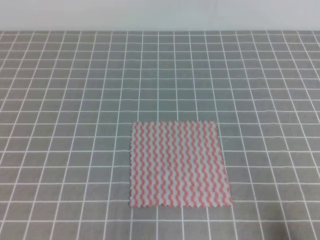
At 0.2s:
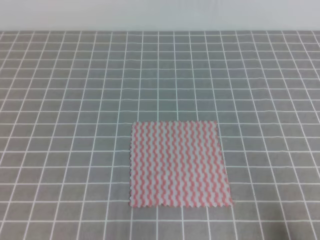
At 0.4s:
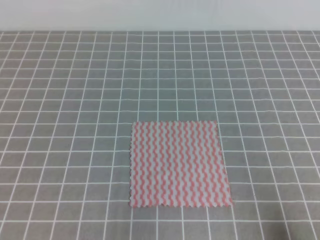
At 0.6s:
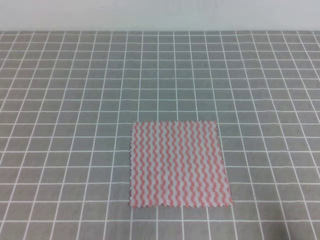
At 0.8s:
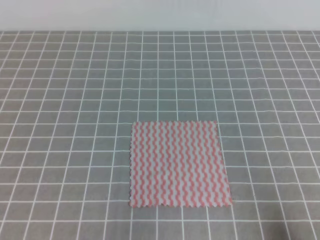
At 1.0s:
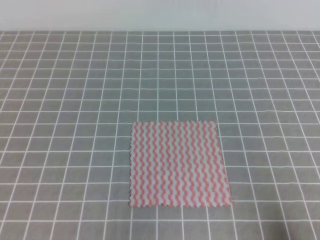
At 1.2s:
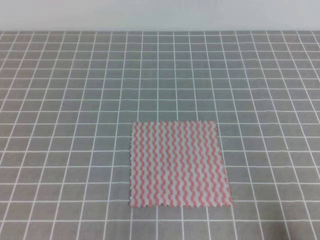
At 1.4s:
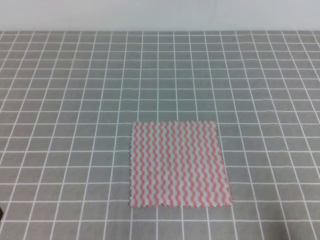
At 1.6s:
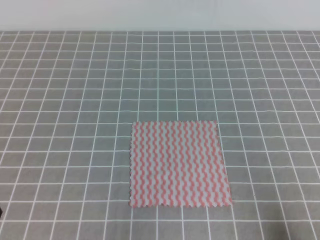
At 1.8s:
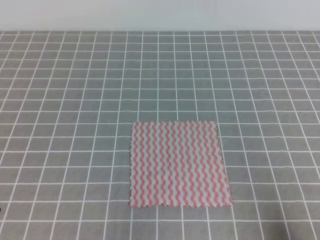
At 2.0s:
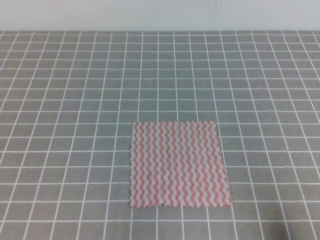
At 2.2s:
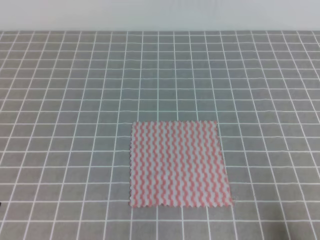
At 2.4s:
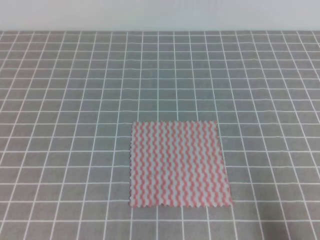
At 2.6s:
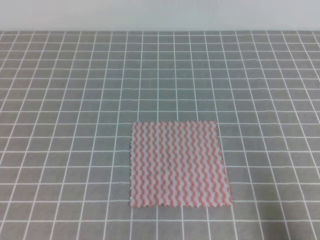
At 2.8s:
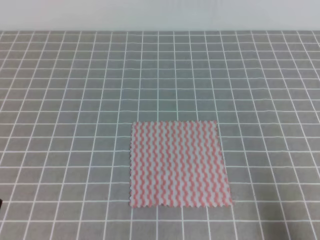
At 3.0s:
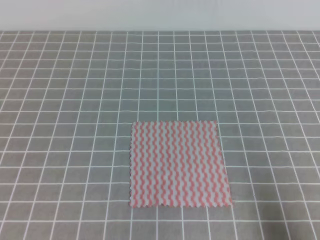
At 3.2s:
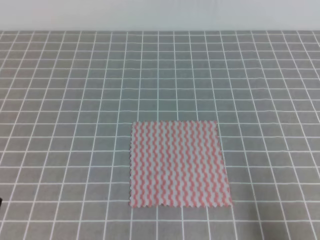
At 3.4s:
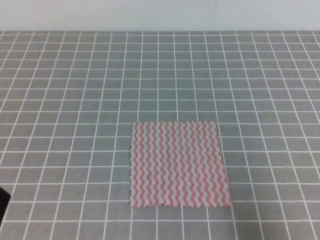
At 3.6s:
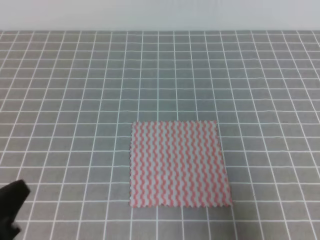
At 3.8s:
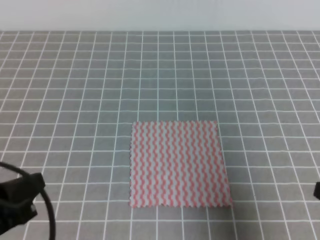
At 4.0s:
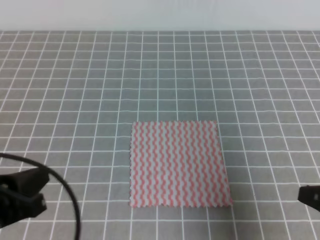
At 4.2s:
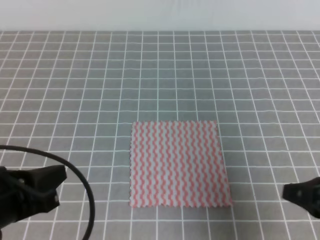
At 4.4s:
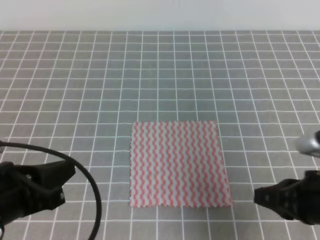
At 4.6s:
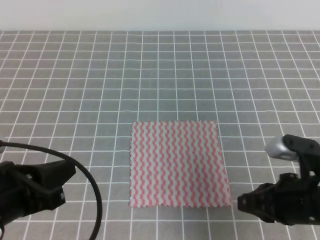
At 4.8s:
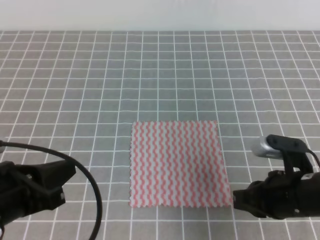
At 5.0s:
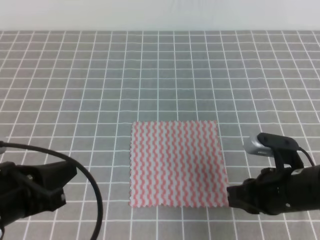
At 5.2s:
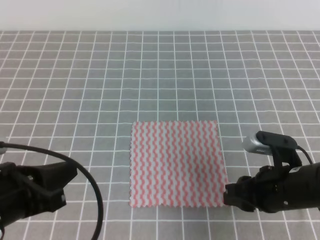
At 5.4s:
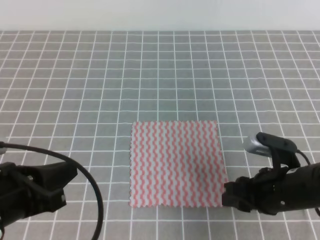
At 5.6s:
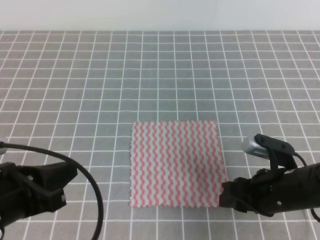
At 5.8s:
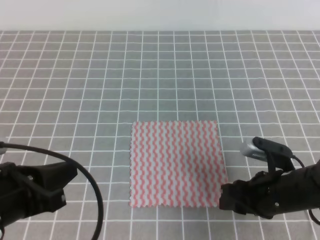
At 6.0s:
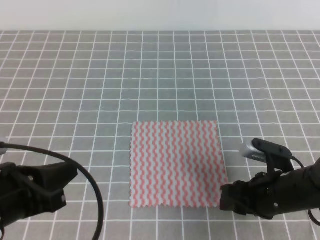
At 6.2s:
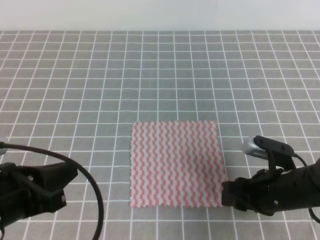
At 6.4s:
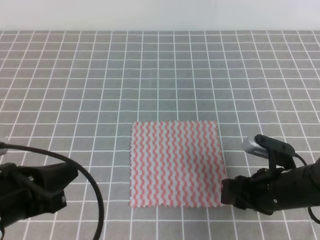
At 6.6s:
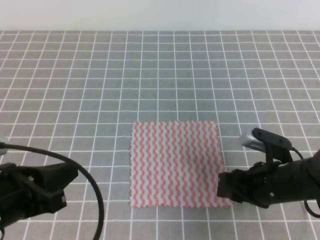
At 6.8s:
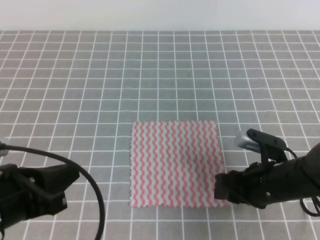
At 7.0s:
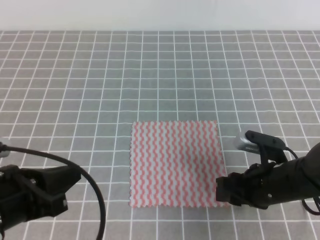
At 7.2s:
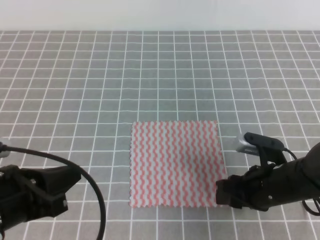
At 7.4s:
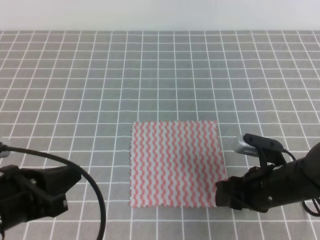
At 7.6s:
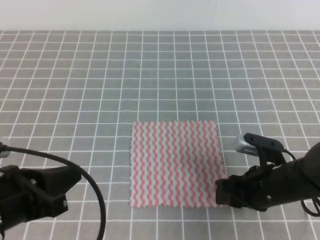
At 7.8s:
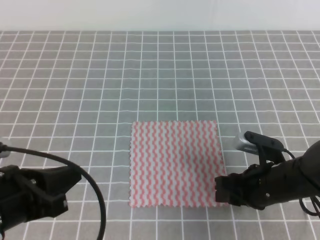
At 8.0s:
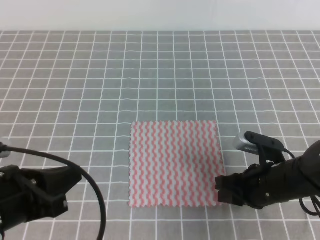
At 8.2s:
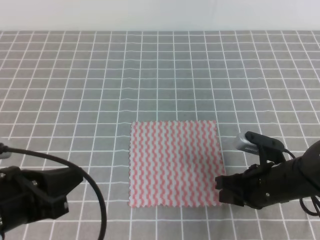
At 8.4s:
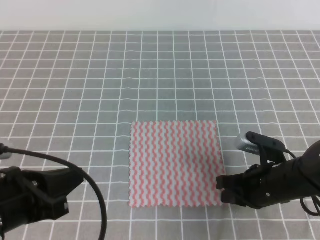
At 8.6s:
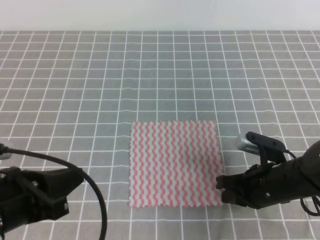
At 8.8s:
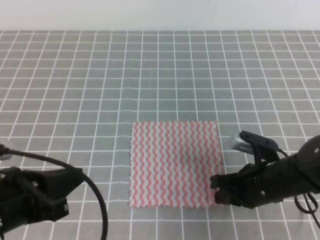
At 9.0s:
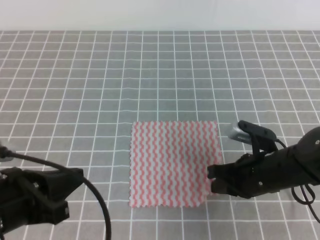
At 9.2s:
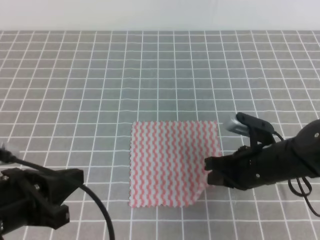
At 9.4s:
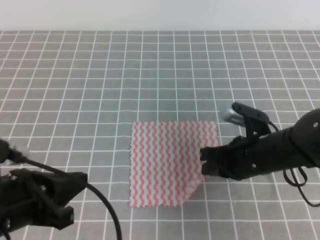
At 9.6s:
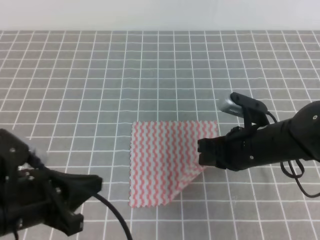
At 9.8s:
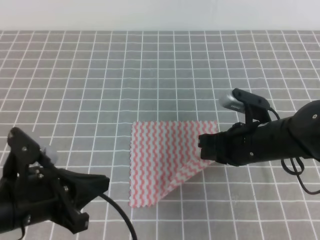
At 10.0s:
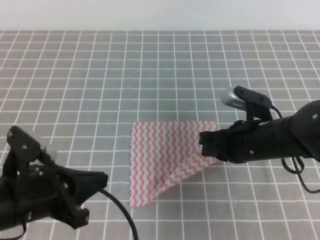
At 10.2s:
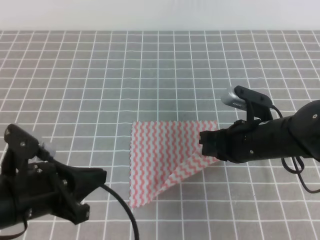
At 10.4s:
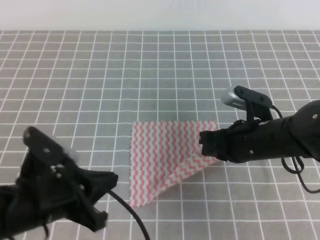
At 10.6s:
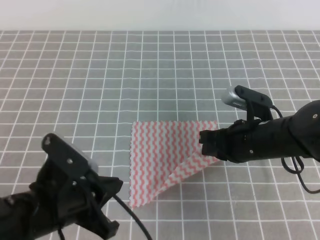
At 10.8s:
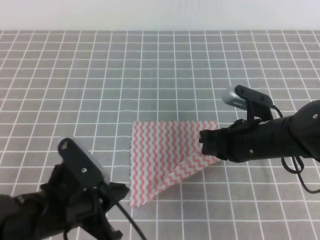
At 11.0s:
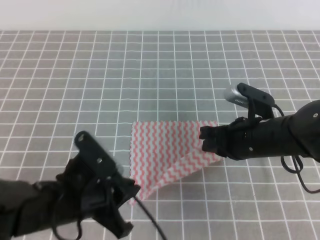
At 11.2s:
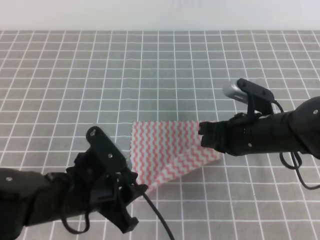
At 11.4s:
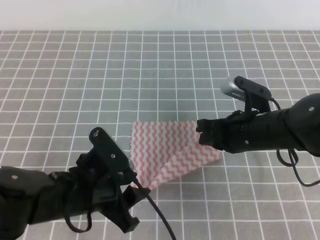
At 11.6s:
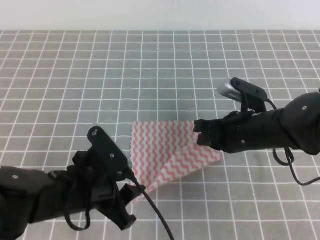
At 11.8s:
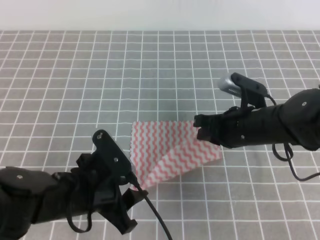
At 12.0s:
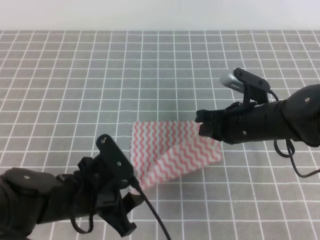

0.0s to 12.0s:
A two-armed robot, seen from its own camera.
3.0s to 4.4s: The right gripper goes roughly 15 cm forward and to the left, while the left gripper moves forward and upward, about 10 cm.
4.4s to 6.0s: The right gripper shifts about 10 cm downward, forward and to the left, and opens up.
6.0s to 7.6s: There are only small adjustments of the grippers.
7.6s to 9.0s: The right gripper closes its fingers.
9.0s to 10.4s: The left gripper changes place by approximately 5 cm. Meanwhile the right gripper moves some 5 cm.
10.4s to 12.0s: The left gripper ends up some 5 cm from where it was, and opens its fingers.

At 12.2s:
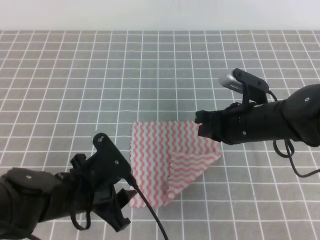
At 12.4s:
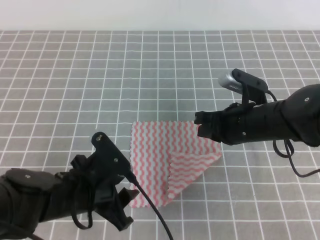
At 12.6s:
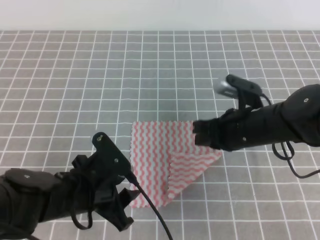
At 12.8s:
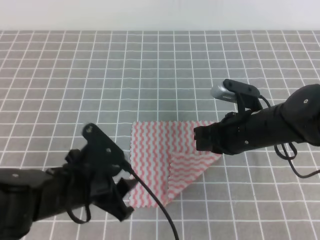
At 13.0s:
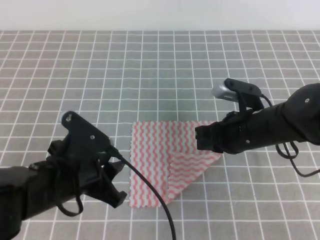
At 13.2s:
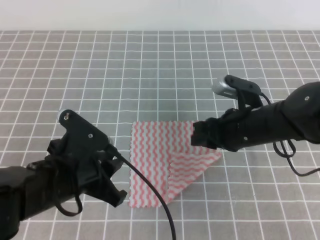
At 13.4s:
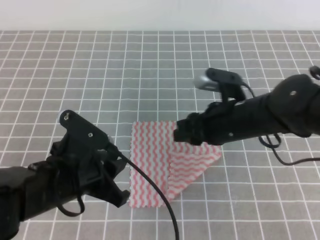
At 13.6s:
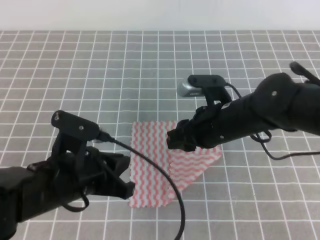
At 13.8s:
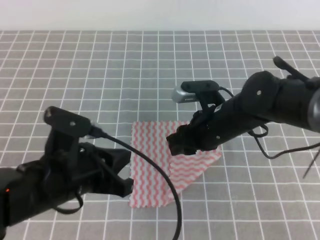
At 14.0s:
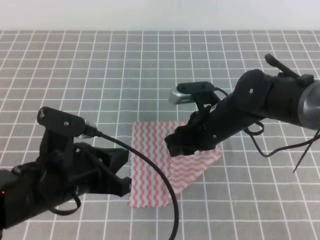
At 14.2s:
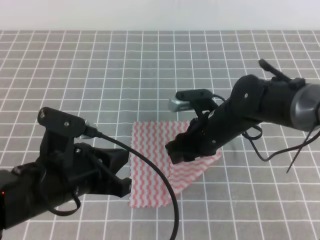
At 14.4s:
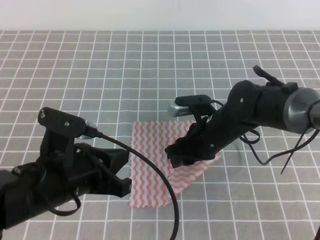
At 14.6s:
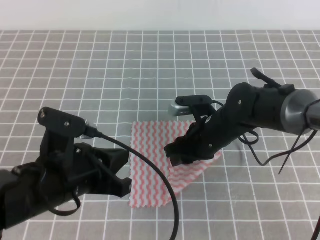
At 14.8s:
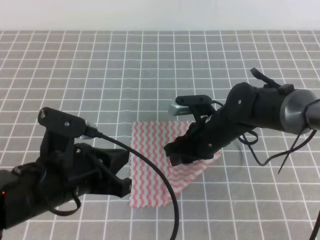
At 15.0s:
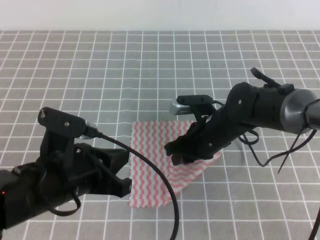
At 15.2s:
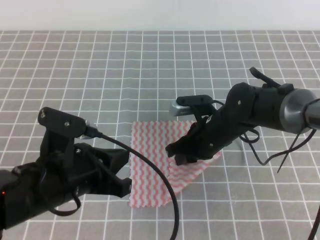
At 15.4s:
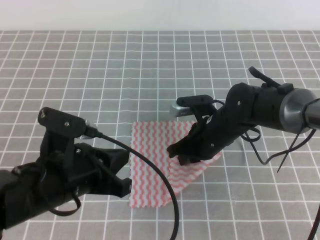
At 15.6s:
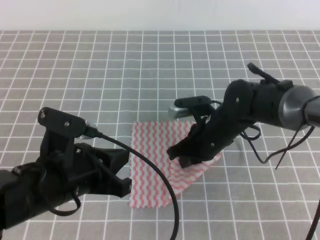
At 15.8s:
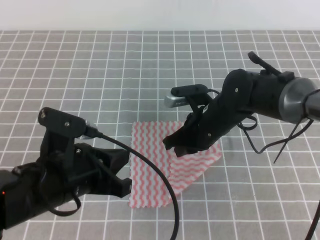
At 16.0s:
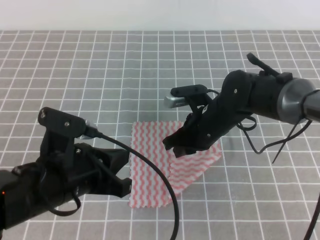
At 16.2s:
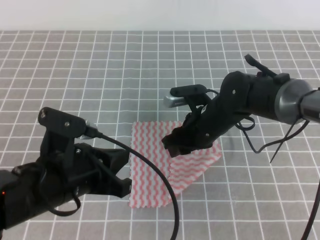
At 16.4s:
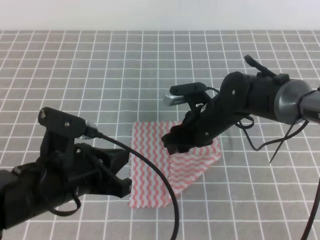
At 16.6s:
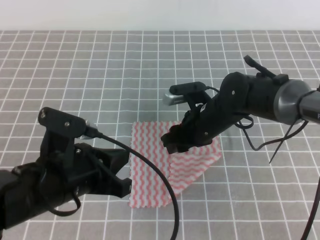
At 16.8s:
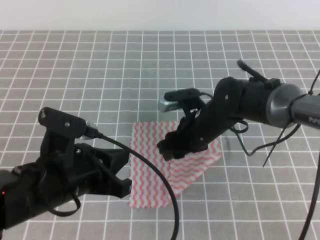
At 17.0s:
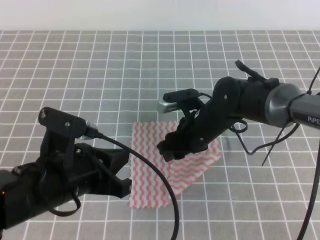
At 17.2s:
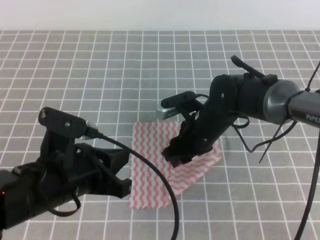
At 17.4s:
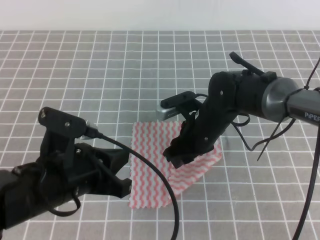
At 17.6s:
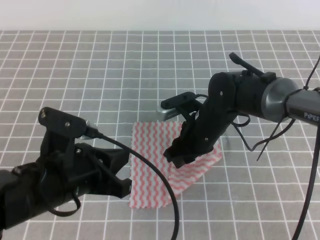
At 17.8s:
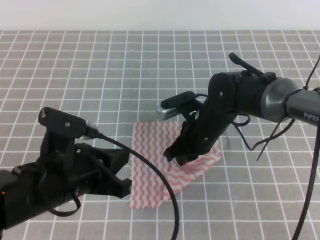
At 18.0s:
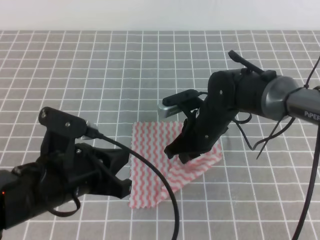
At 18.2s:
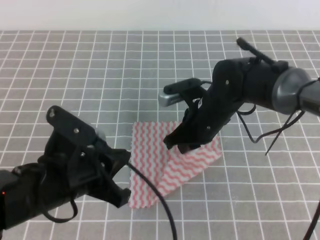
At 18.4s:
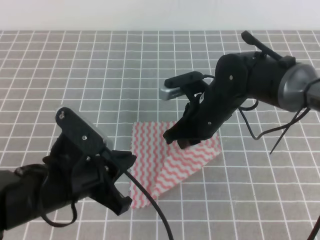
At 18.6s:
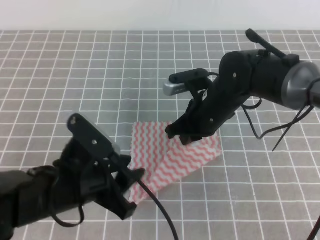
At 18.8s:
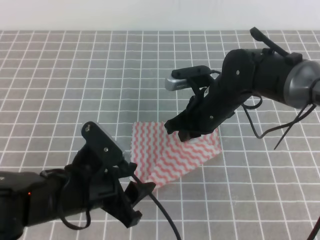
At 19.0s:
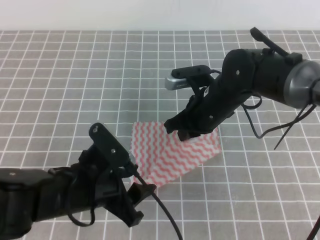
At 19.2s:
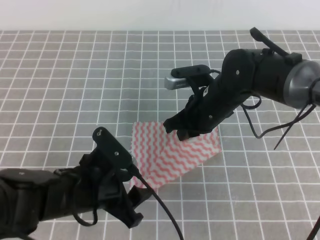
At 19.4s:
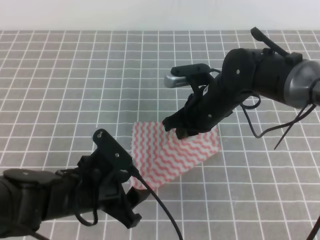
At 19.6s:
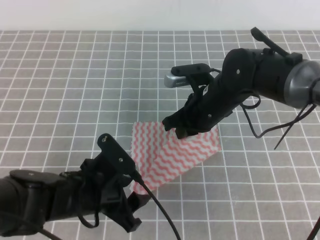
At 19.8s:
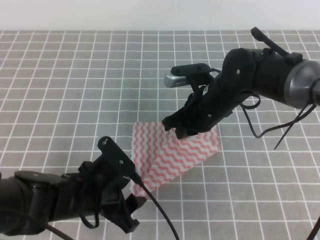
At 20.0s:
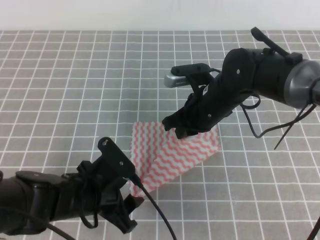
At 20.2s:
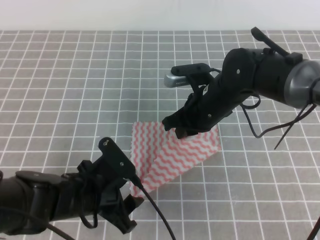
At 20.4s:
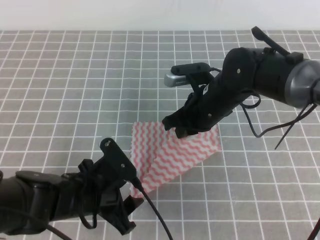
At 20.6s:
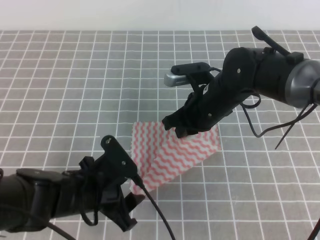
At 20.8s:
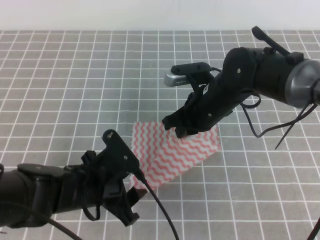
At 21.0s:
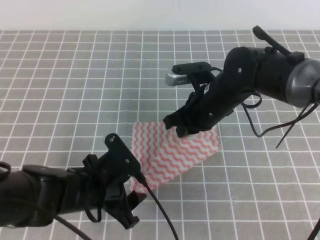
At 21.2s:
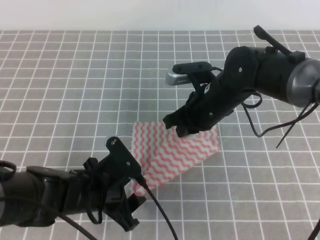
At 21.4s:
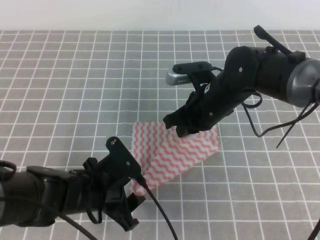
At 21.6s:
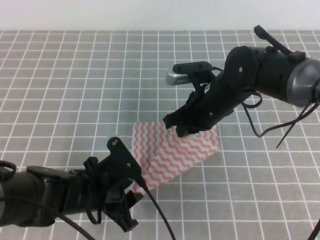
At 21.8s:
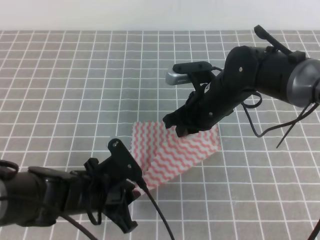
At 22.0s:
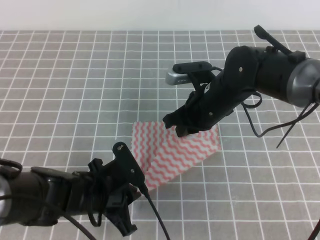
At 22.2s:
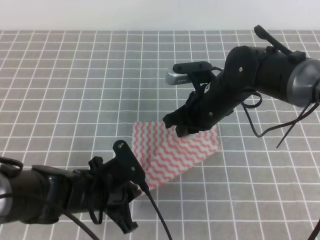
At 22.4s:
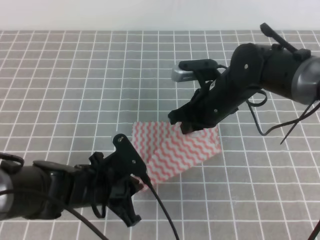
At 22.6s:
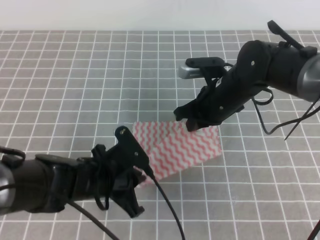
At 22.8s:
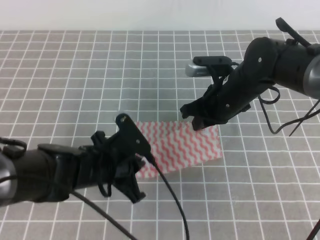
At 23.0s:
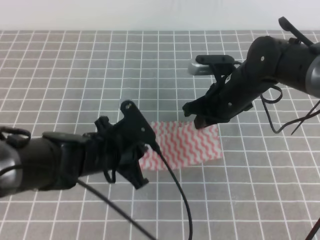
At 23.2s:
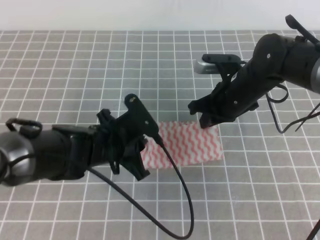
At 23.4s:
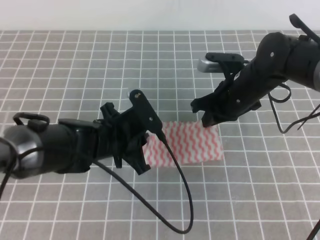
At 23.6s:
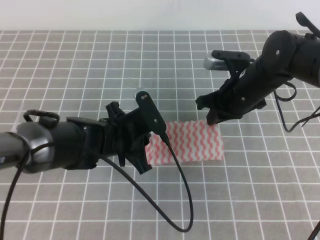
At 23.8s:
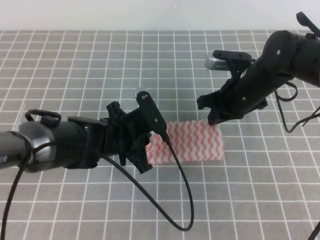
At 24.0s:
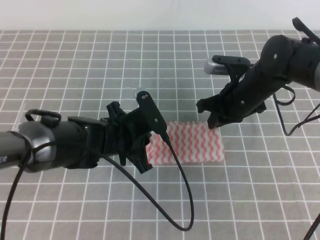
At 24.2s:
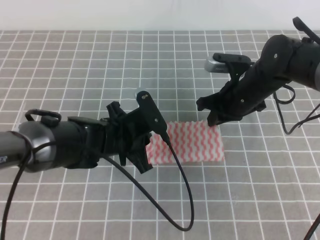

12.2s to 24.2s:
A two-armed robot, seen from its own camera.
12.2s to 13.8s: The left gripper is displaced upward by some 5 cm, and closes. The right gripper opens up.
13.8s to 15.2s: The right gripper heads downward, covering some 5 cm, and closes up.
15.2s to 16.6s: The right gripper opens its fingers.
16.6s to 18.2s: The right gripper closes up.
18.2s to 19.8s: The left gripper heads downward, covering roughly 10 cm, and opens up.
19.8s to 21.2s: The grippers move only a little.
21.2s to 22.6s: The left gripper closes up.
22.6s to 24.2s: The left gripper travels forward by some 5 cm.
